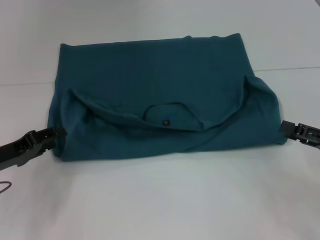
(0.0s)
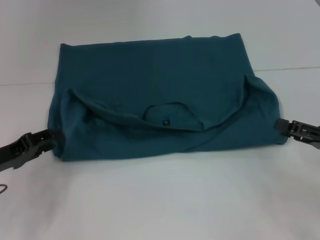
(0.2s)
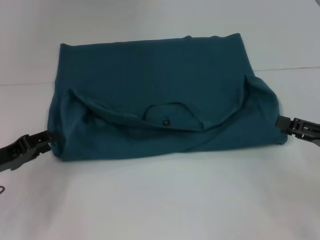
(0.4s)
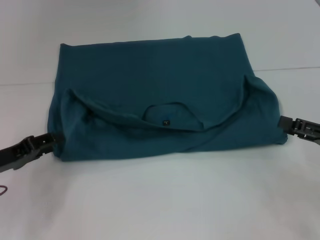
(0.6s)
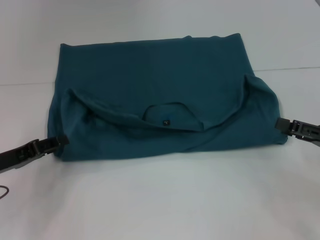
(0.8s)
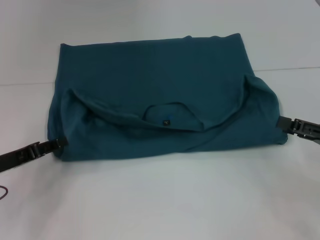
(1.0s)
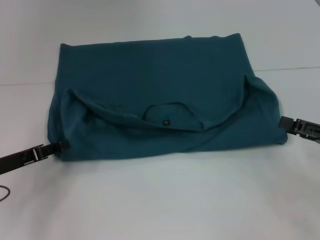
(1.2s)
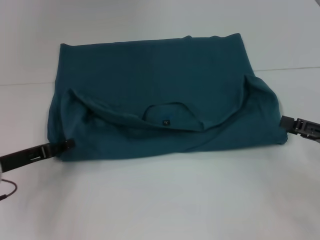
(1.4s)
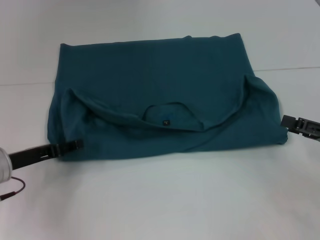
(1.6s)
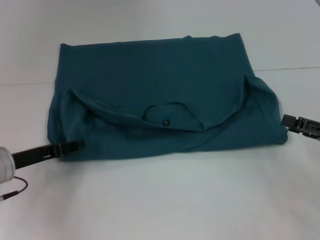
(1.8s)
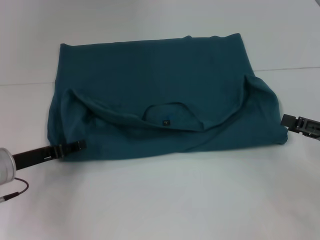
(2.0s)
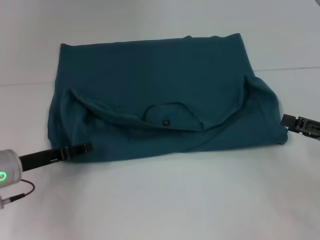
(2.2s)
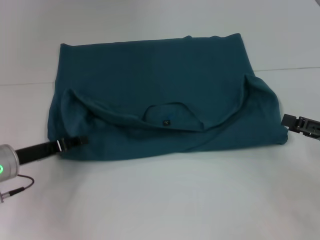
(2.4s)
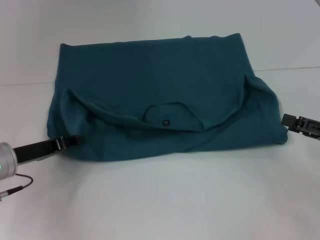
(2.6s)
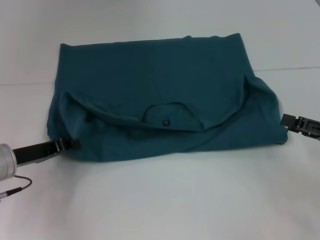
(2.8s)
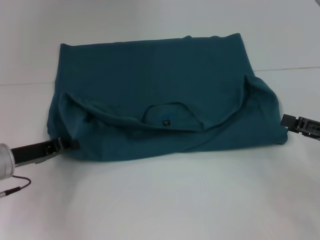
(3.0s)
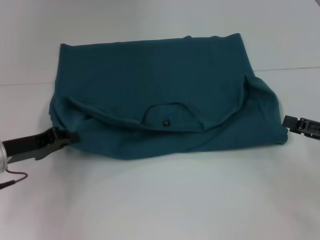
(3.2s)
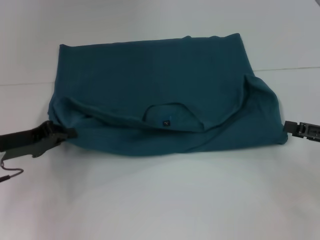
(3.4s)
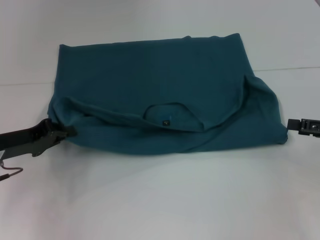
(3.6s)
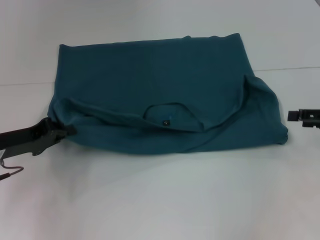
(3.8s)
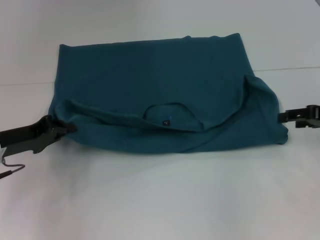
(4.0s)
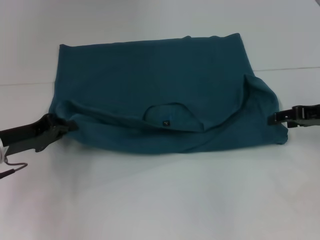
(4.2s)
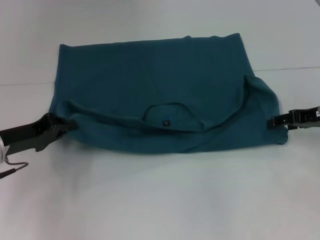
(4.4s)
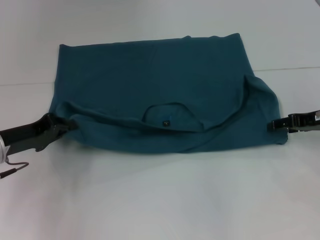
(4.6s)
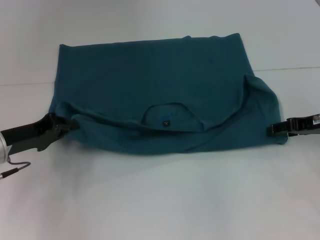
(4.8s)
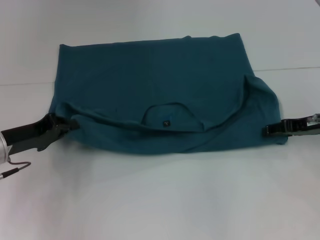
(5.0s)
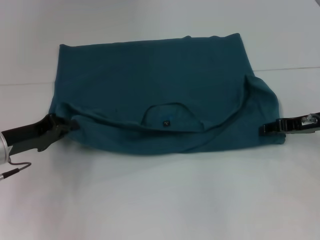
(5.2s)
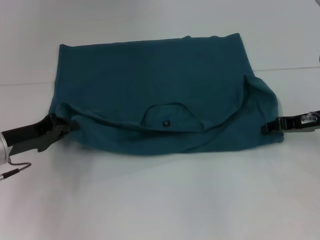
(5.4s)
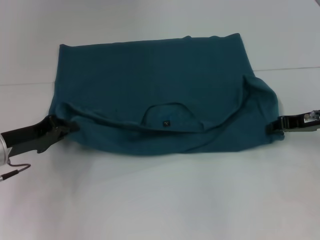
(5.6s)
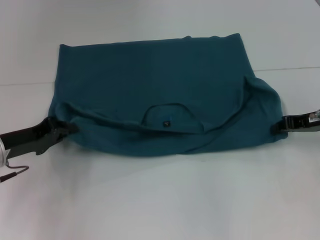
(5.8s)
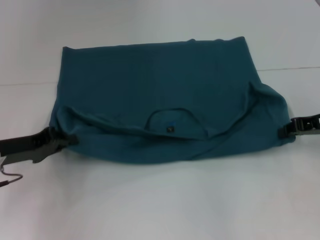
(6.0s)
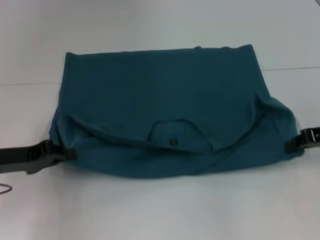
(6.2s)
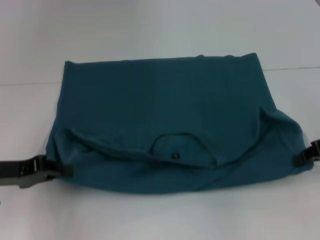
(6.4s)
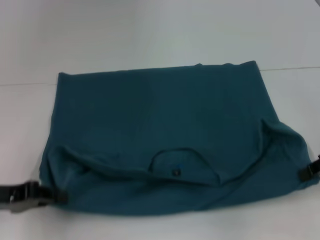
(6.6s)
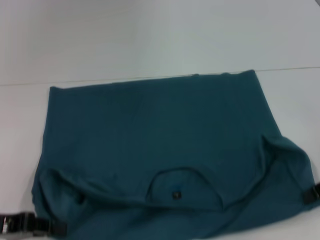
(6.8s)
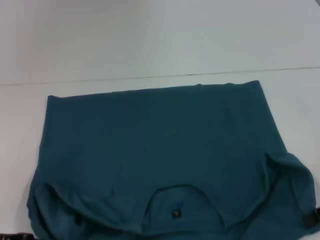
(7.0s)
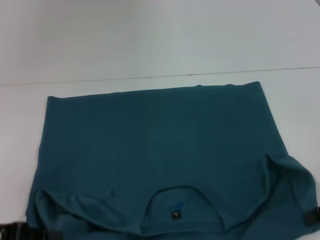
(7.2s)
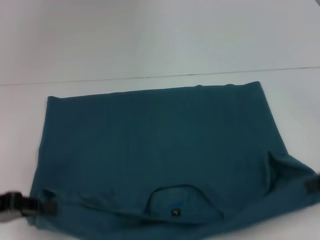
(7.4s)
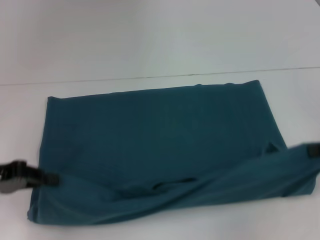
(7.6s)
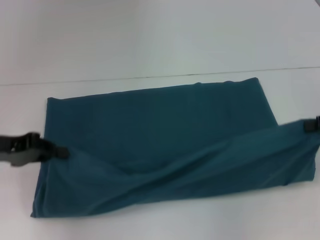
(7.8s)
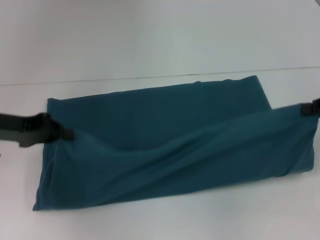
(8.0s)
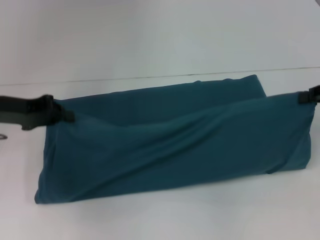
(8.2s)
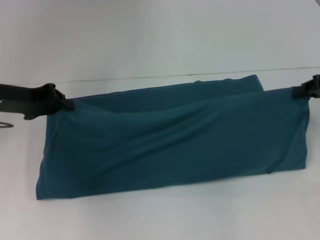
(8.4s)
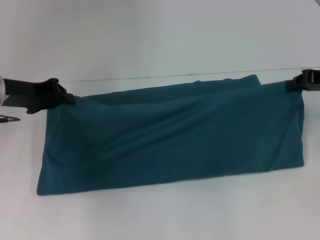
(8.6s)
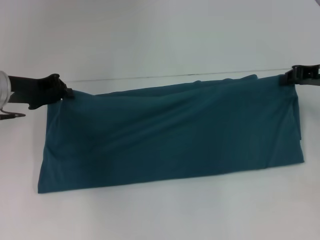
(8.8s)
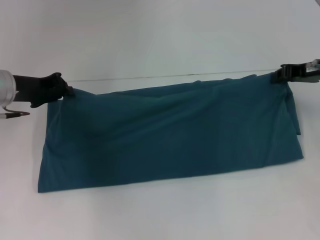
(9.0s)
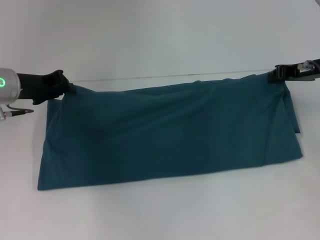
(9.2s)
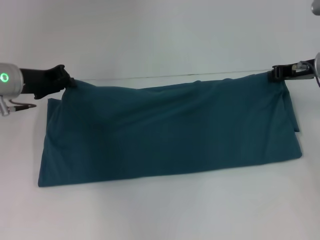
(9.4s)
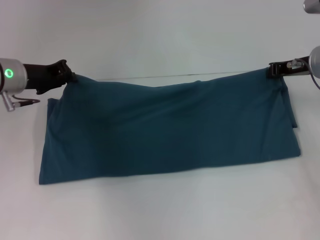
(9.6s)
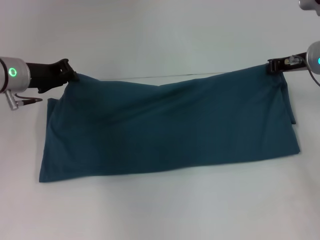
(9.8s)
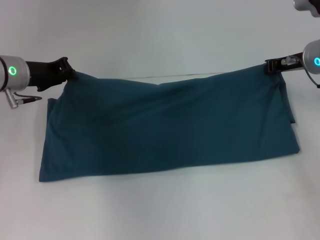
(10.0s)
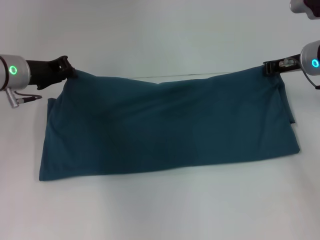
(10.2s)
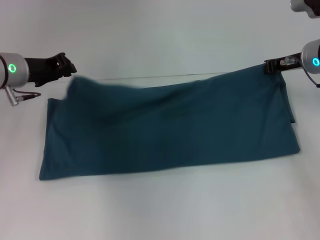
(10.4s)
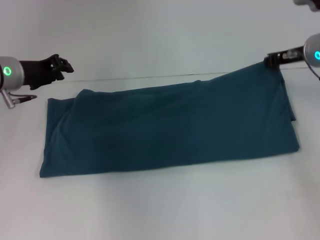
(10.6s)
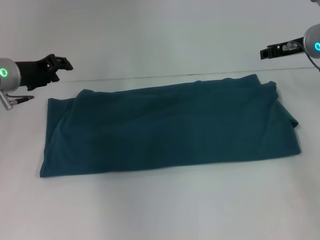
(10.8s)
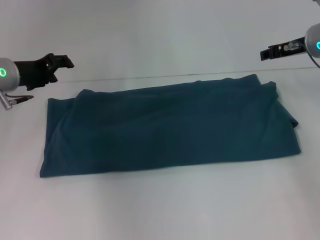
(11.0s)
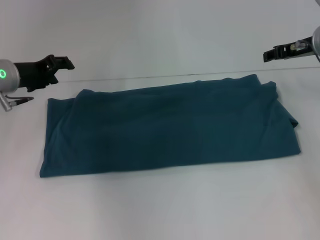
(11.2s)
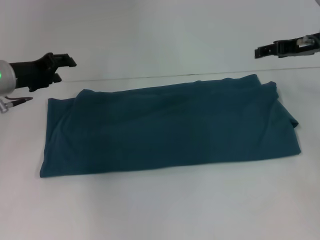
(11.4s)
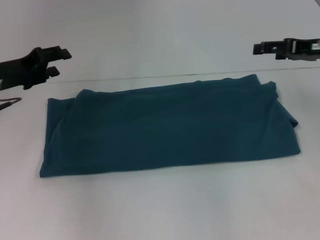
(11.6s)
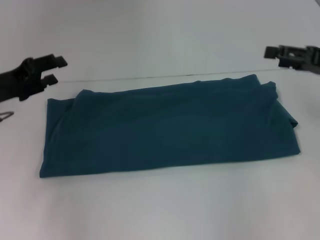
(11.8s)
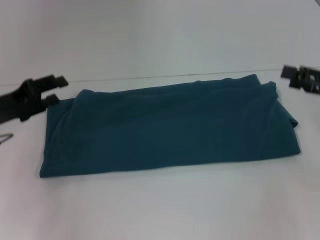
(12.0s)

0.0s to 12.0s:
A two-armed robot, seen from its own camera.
Step, 0.0s to 6.8s: Pull the clothes with your left hand.
Step, 0.0s to 6.8s: Pull the clothes with your right hand.
Step, 7.0s to 10.6s: Fold the clothes to the right.
1.6s to 3.0s: The left gripper closes.
3.0s to 4.4s: The right gripper is displaced forward by approximately 10 cm.
4.4s to 6.0s: The right gripper closes up.
6.0s to 7.6s: The right gripper travels backward by approximately 5 cm; the left gripper ends up about 5 cm from where it was.
7.6s to 9.0s: The left gripper is displaced forward and to the right by about 15 cm; the right gripper moves forward and to the left, roughly 15 cm.
9.0s to 10.4s: The right gripper changes place by approximately 5 cm.
10.4s to 12.0s: The right gripper travels backward and to the right by about 15 cm, and opens; the left gripper heads backward and to the left, covering about 10 cm, and opens up.

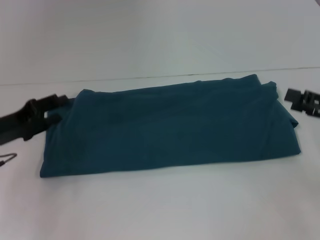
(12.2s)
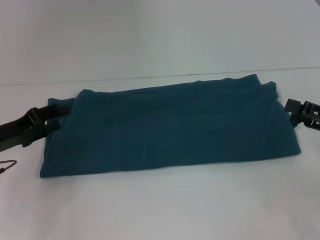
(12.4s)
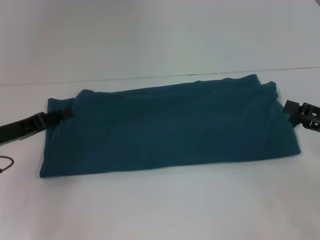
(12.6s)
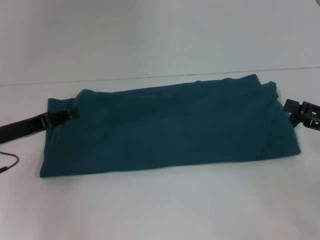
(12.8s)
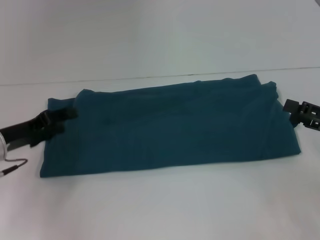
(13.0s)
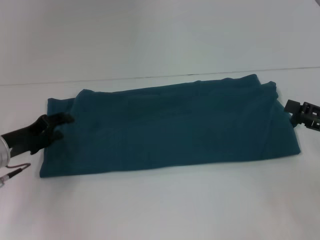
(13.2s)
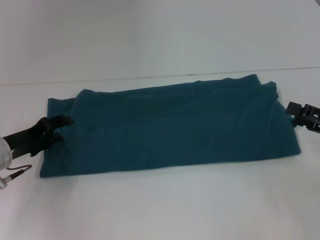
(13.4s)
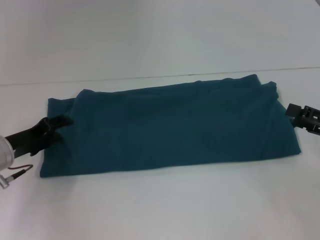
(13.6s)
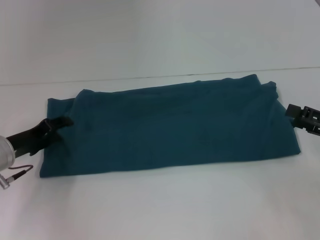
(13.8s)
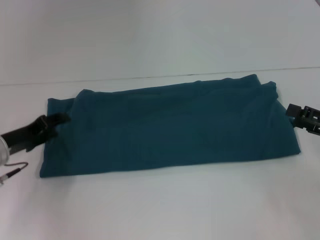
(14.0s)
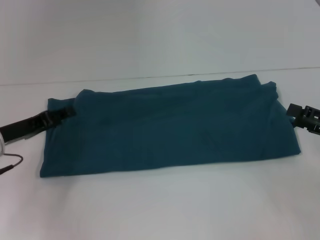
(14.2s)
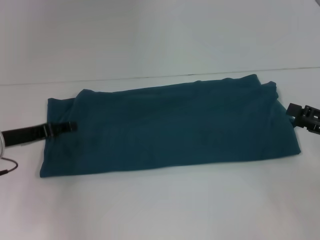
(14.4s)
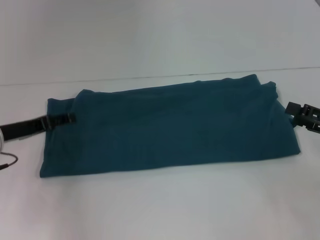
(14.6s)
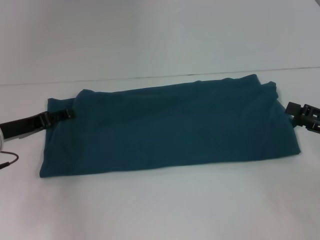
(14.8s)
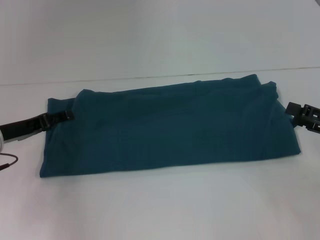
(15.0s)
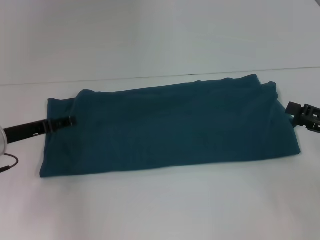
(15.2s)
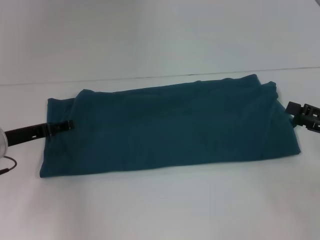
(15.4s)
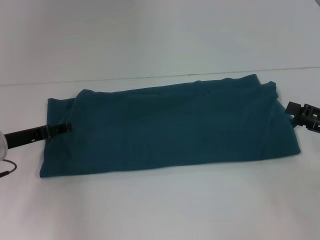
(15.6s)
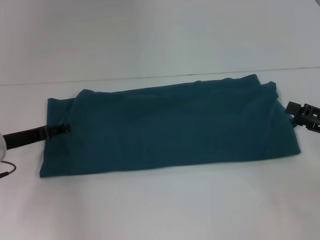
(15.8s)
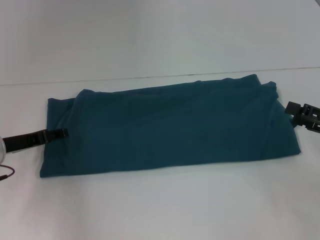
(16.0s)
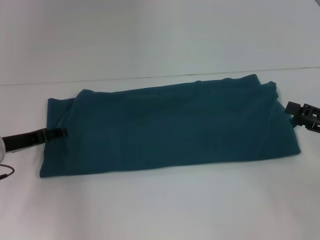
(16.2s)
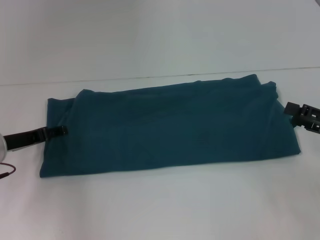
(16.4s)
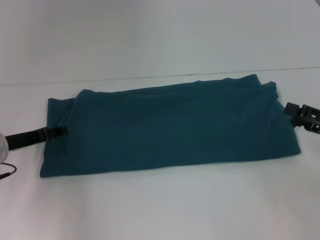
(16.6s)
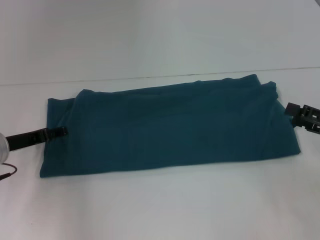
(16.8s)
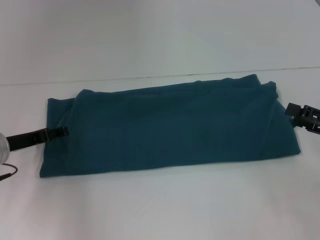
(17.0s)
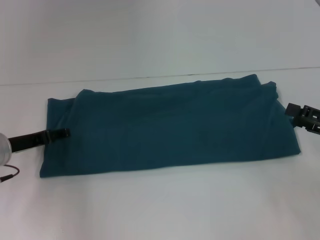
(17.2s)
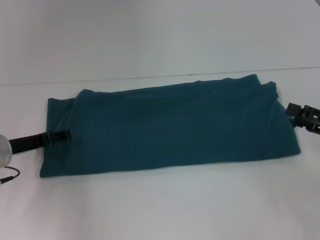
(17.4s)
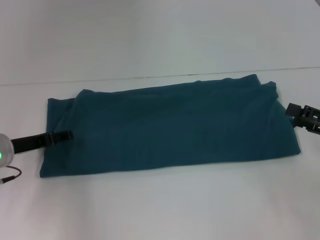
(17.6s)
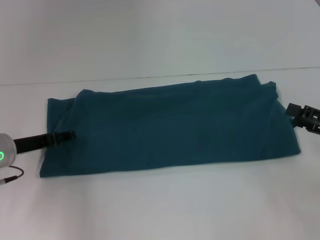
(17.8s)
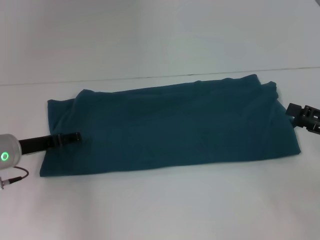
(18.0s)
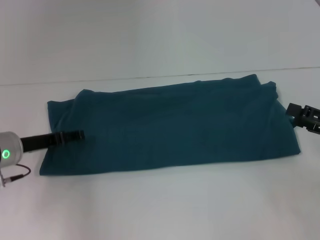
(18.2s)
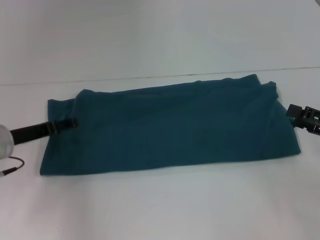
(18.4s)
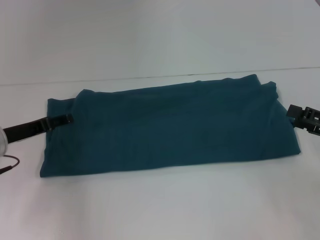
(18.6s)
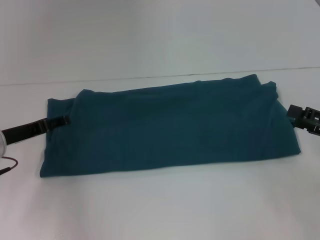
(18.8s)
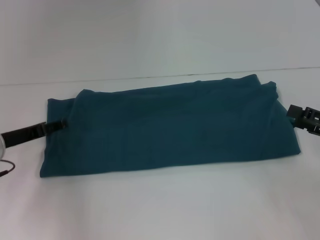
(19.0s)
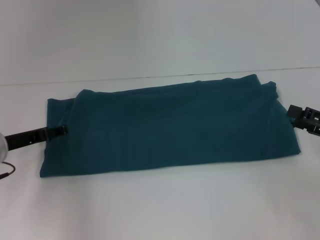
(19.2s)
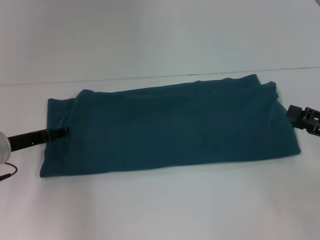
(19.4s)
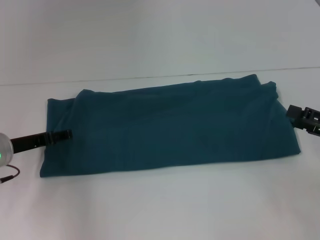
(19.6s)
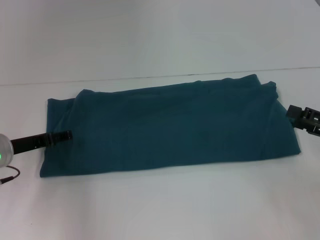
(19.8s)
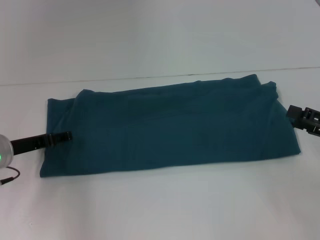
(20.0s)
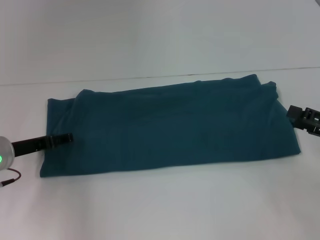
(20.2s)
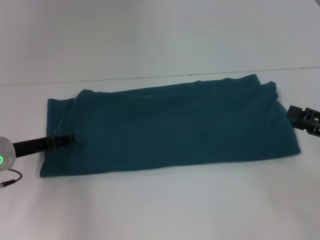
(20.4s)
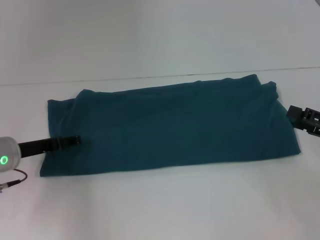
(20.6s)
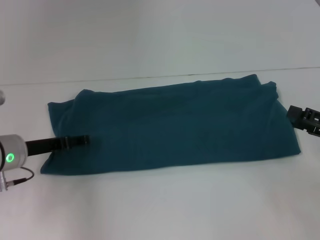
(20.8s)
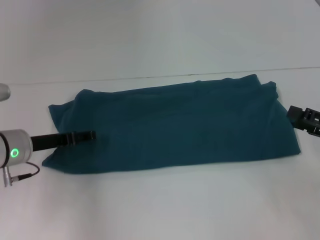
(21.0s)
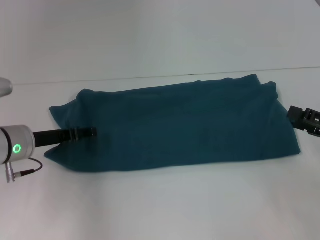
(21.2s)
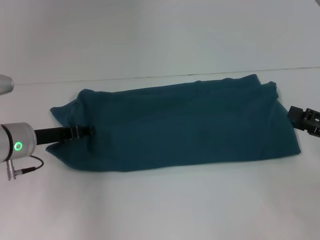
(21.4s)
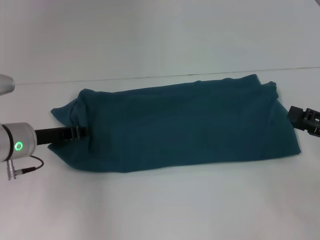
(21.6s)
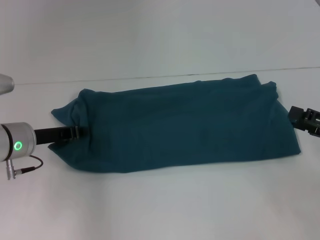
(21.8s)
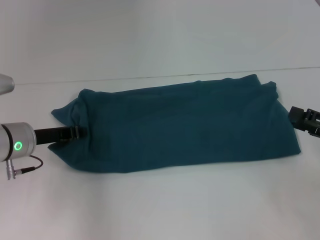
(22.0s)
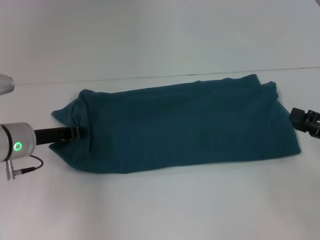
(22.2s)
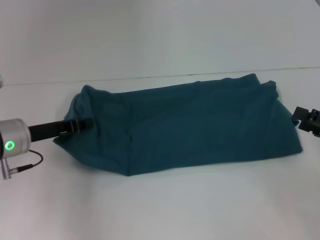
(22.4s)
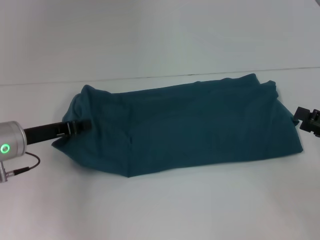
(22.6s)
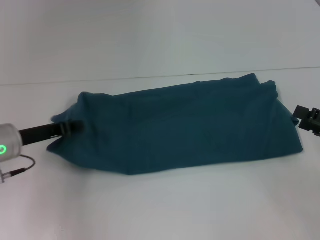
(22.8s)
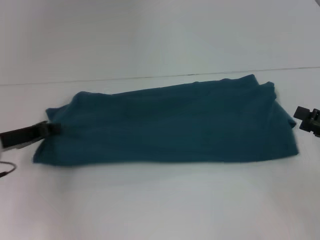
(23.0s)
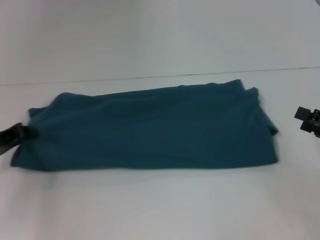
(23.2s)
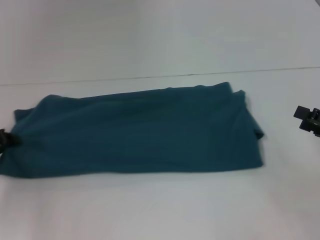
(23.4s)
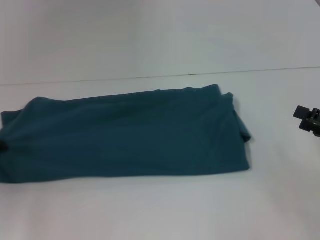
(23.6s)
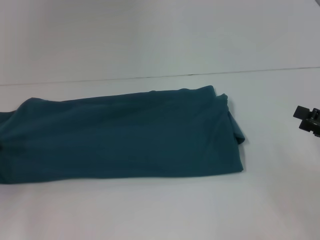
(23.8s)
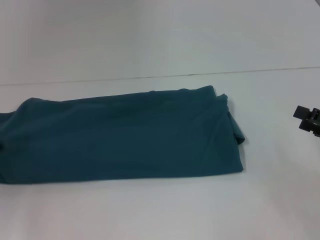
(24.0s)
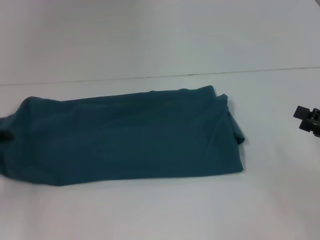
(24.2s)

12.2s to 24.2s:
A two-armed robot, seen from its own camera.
15.2s to 21.2s: The grippers move only a little.
21.2s to 22.6s: The left gripper closes its fingers.
22.6s to 24.2s: The left gripper heads to the left, covering about 10 cm.
